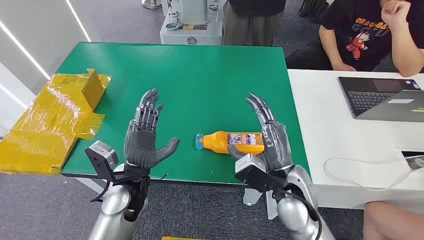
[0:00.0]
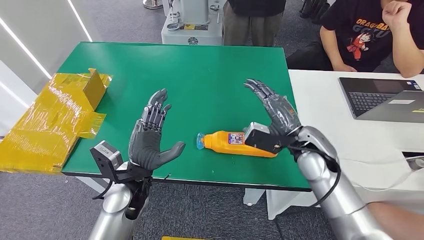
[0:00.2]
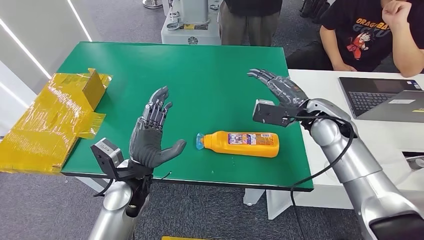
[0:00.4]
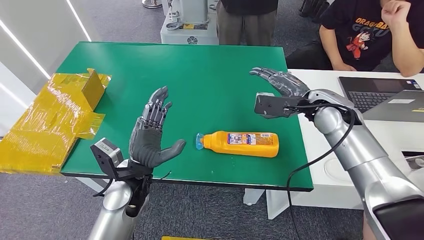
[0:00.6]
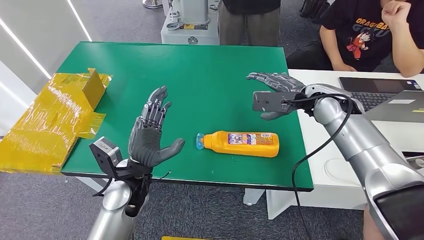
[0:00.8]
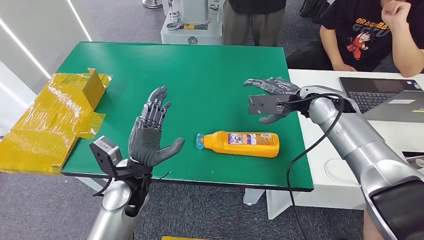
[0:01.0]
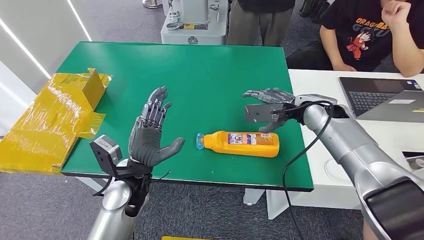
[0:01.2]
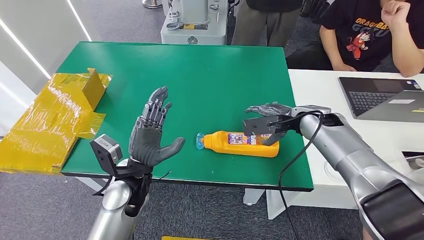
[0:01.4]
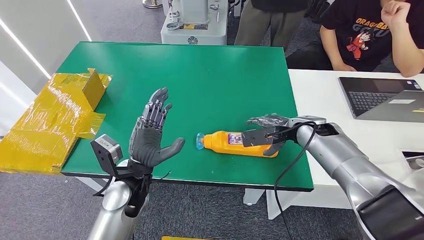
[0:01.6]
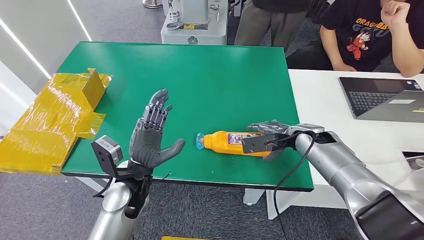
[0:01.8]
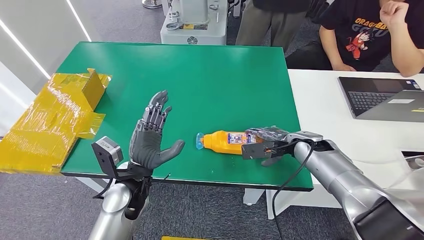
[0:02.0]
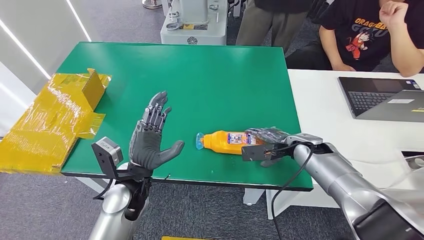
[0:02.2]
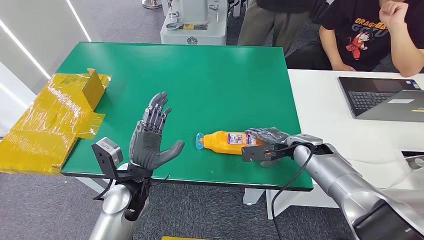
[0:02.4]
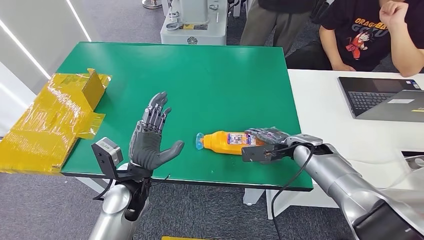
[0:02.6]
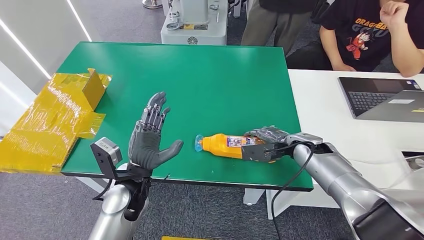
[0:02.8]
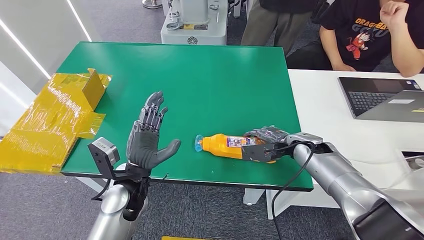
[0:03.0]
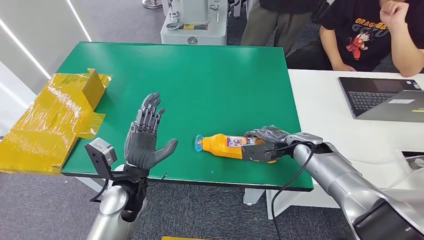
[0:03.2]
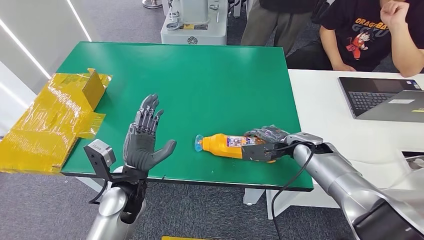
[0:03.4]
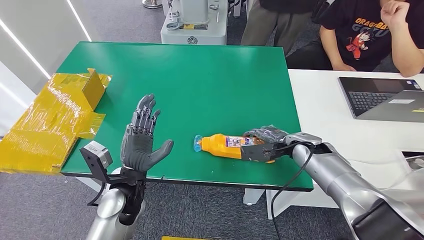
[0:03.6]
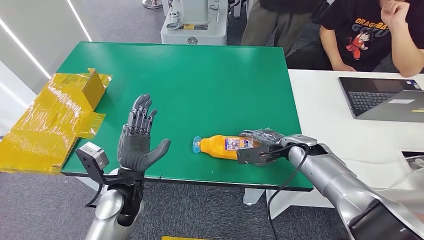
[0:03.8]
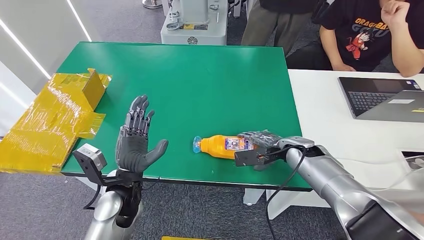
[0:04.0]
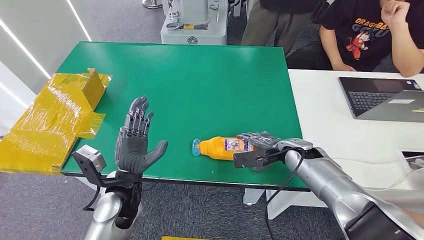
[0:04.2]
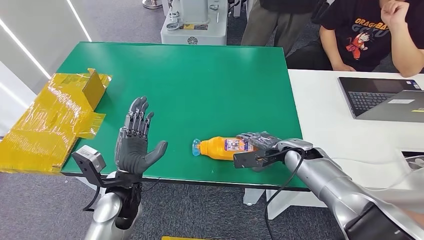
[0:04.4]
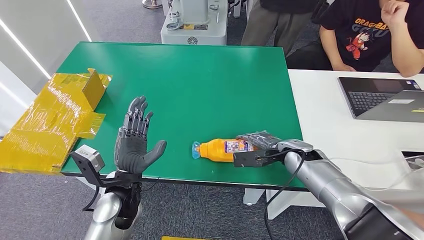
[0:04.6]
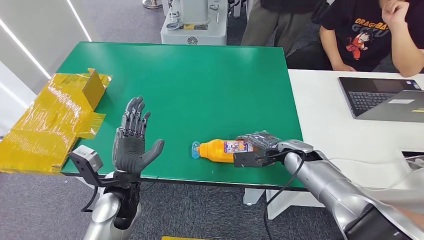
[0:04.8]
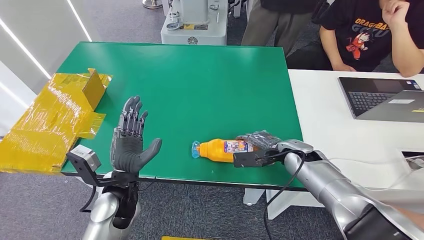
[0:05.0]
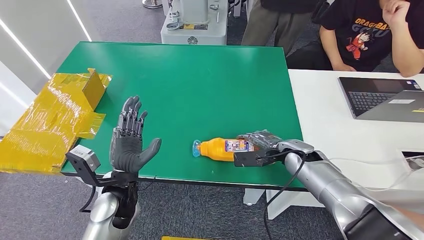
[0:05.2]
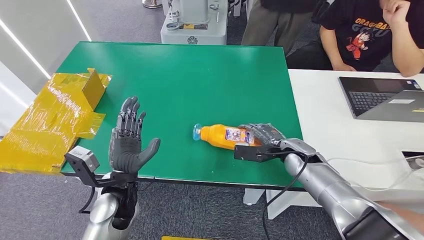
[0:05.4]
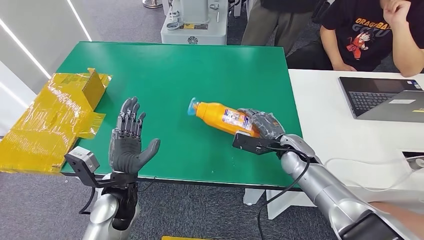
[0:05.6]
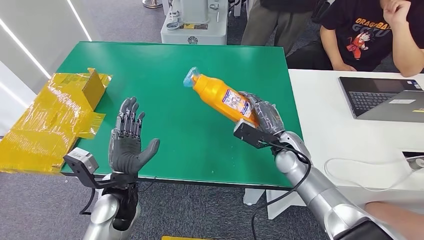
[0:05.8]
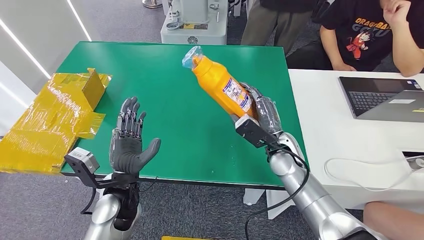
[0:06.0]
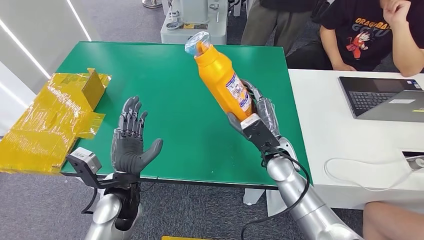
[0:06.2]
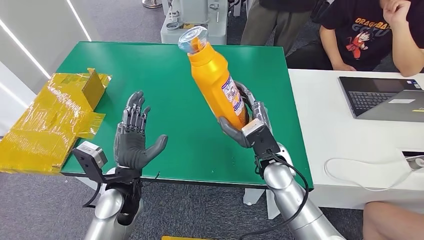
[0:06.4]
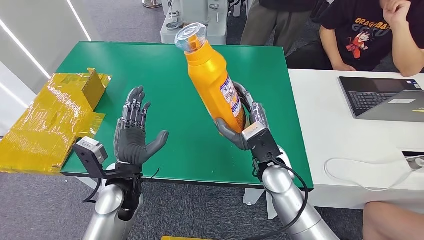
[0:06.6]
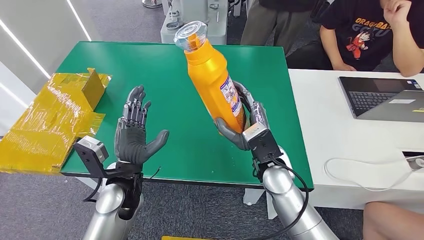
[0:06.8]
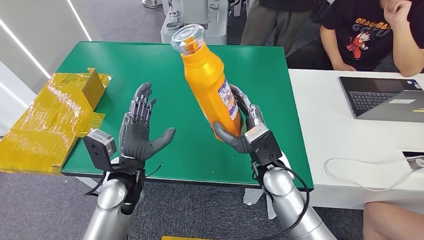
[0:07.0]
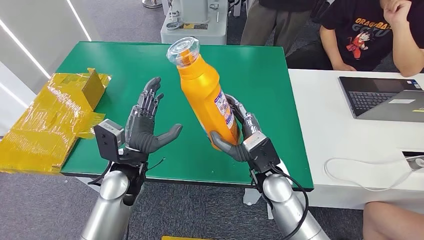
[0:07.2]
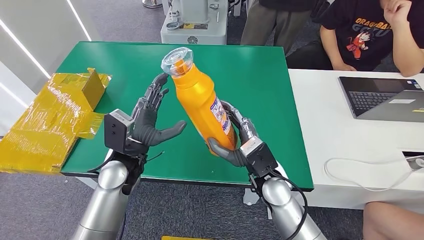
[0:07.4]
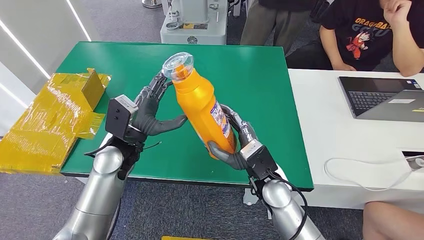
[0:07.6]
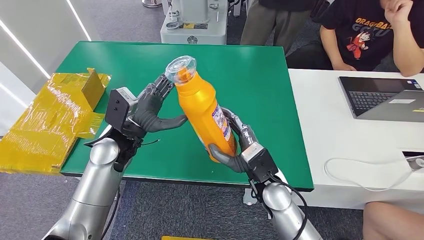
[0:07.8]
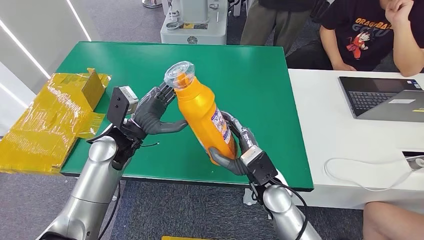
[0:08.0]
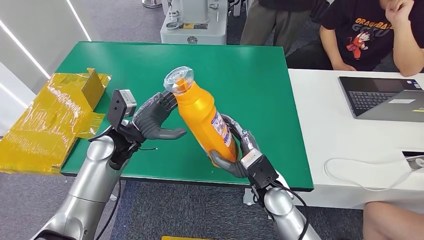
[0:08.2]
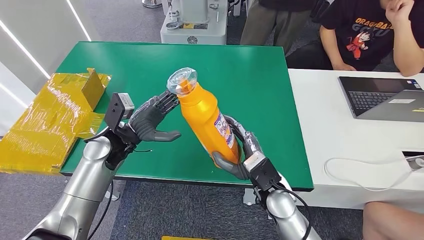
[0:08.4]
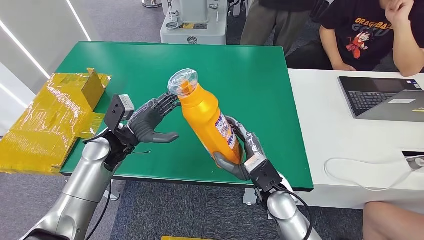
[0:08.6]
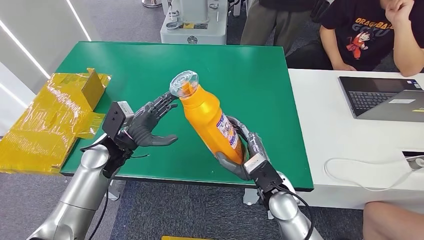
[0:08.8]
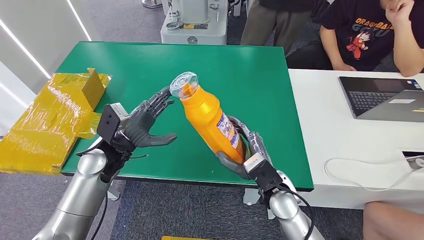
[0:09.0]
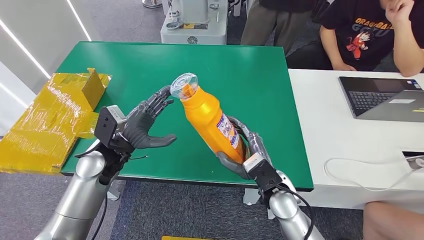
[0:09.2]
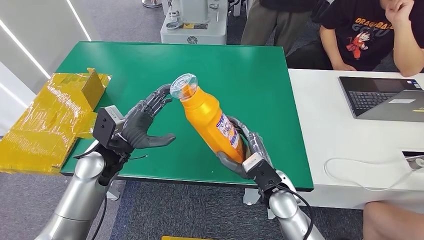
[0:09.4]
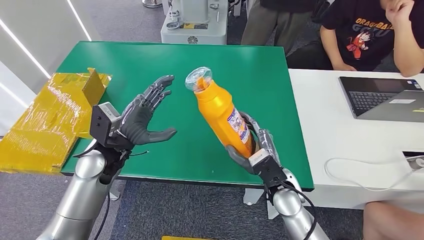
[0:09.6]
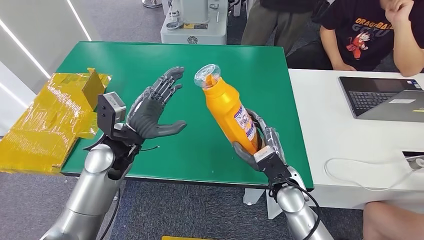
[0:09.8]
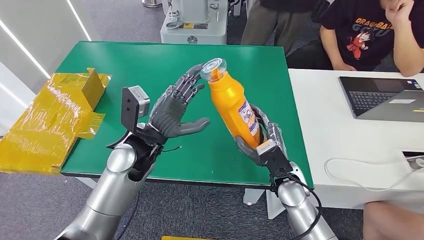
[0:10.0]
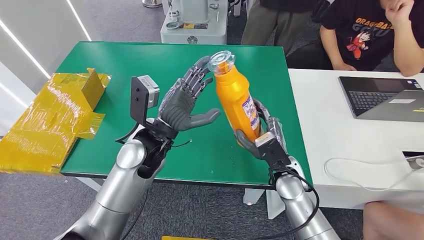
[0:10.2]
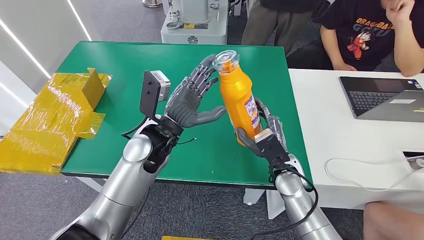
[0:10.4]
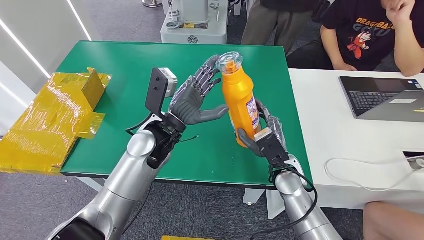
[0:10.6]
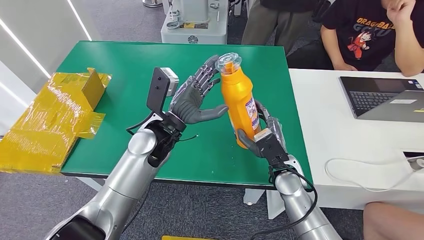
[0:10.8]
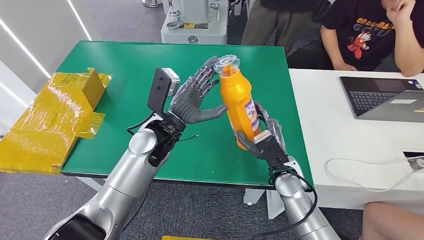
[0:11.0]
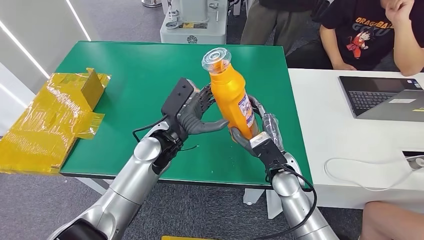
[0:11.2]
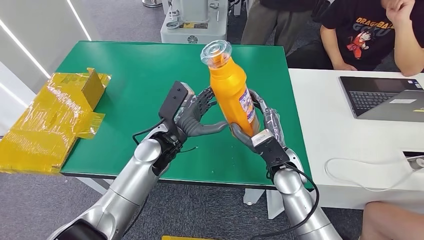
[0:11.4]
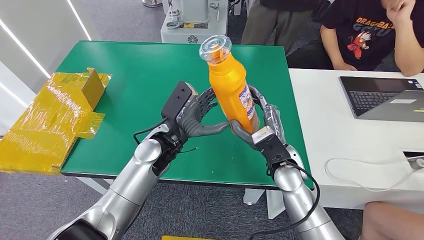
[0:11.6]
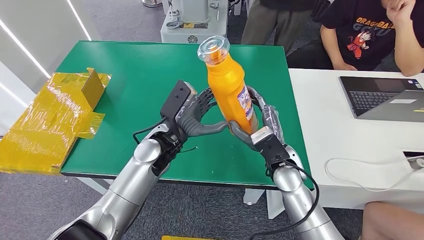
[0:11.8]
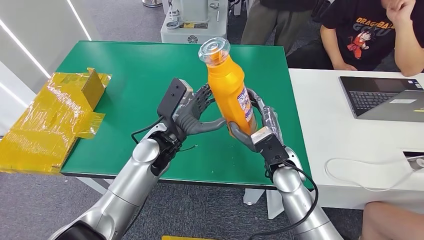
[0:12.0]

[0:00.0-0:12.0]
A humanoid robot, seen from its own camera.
Step, 0:00.0 to 0:09.0: Pick up the bottle from the table.
0:01.6 to 0:03.0: The right hand shifts roughly 5 cm downward.
0:03.0 to 0:04.4: The hands stay close to where they were, moving slightly.
0:04.4 to 0:06.0: The right hand heads to the left, covering some 10 cm.
0:07.6 to 0:09.0: The left hand goes approximately 5 cm to the left.
0:10.4 to 0:12.0: The hands stay close to where they were, moving slightly.

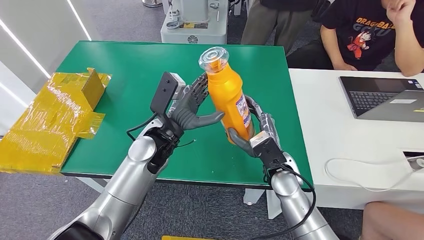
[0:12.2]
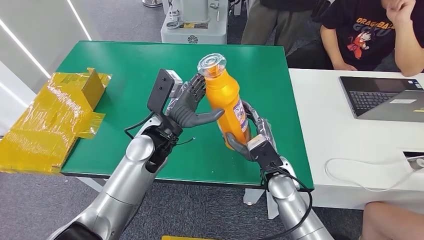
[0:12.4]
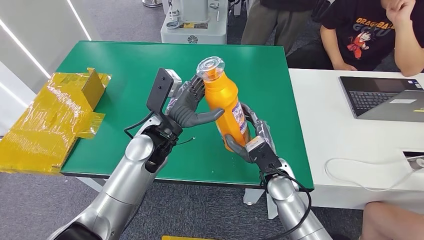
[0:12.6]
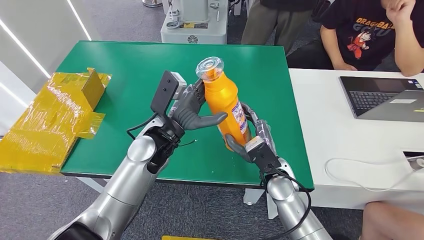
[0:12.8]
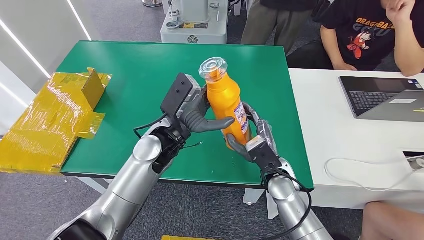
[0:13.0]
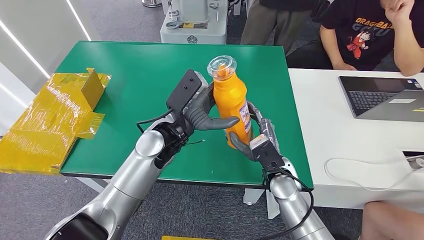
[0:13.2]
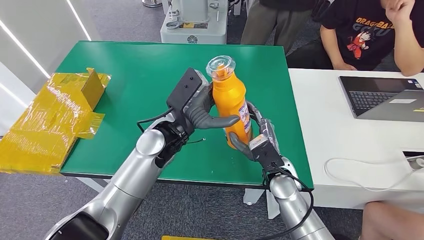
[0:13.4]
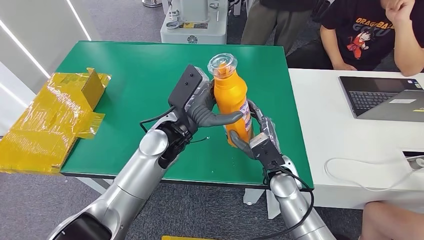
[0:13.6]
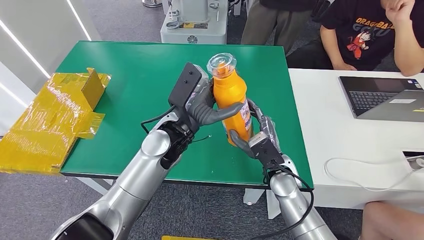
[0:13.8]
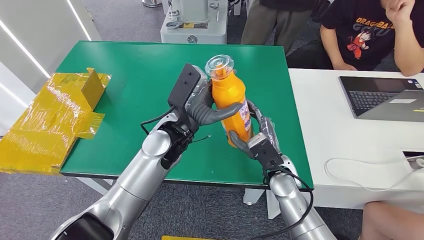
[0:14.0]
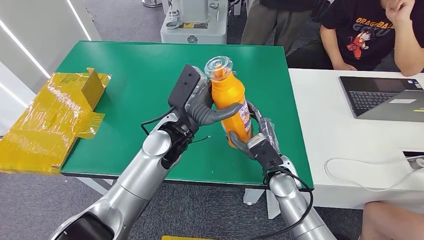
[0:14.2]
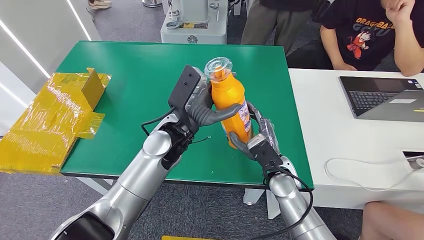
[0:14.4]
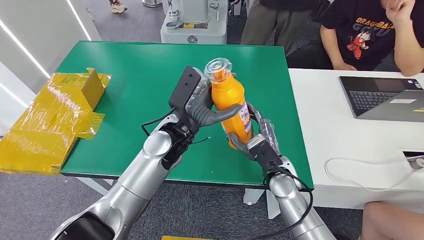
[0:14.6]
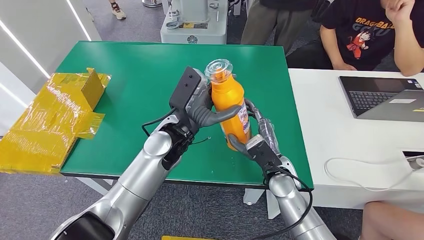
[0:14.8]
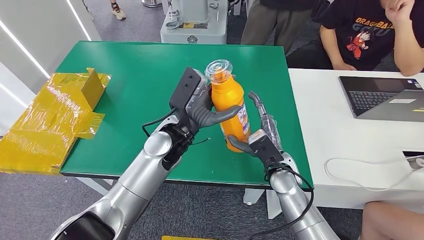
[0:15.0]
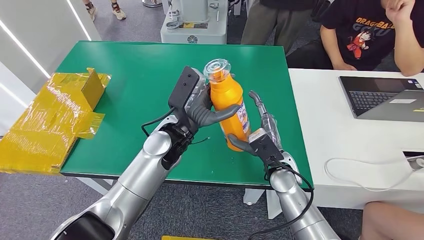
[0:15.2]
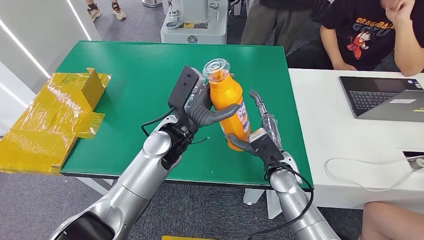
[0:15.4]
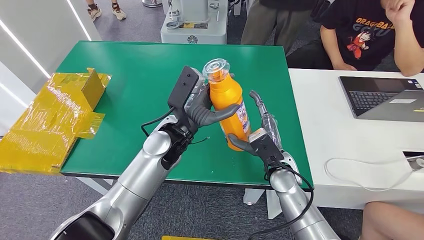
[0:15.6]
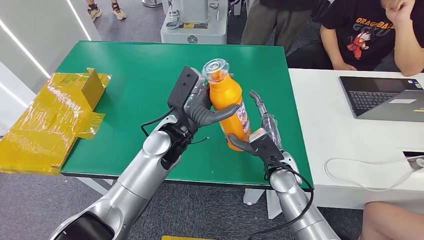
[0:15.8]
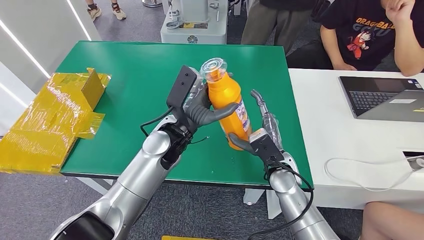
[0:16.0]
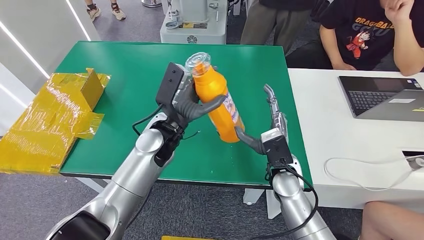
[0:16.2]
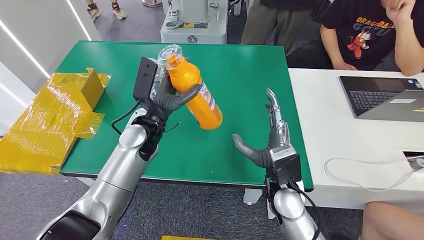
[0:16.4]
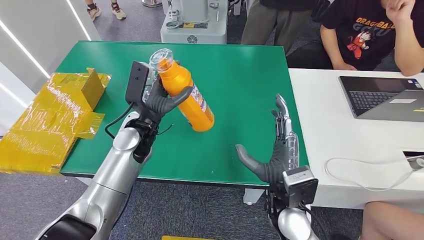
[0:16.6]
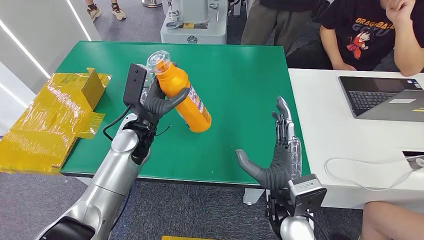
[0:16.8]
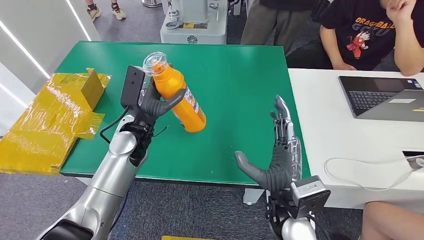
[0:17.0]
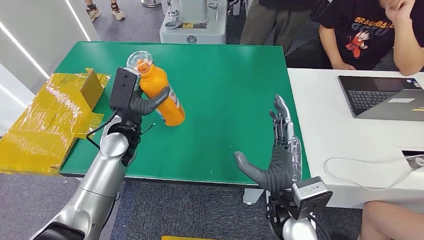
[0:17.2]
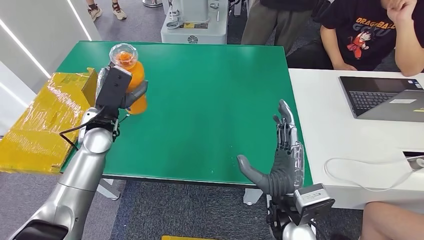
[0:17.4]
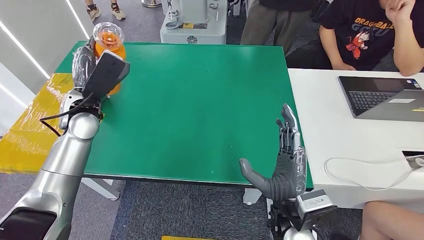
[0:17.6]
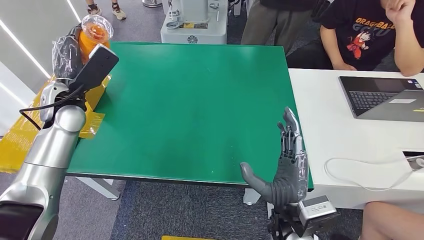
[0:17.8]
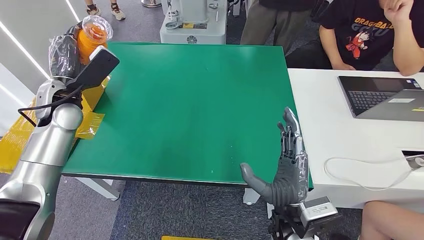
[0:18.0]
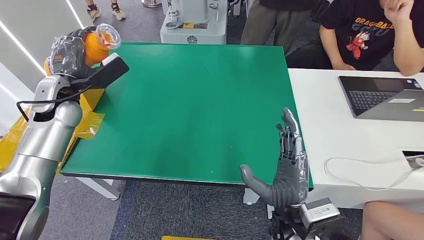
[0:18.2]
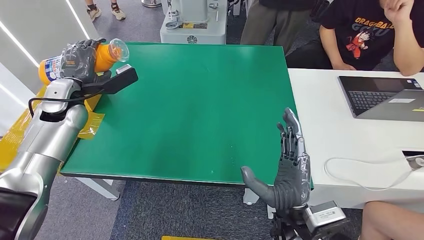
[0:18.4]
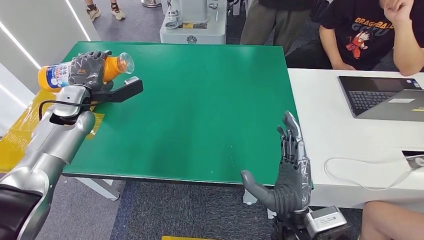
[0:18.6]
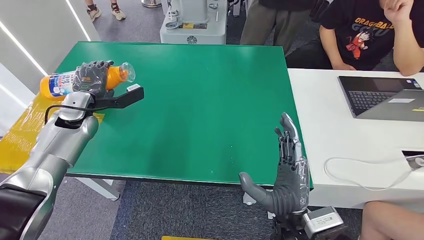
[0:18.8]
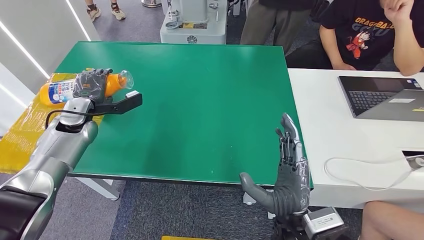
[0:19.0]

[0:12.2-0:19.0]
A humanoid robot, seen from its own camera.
0:12.2 to 0:13.6: The hands move only a little.
0:13.6 to 0:15.0: Both hands stay put.
0:15.0 to 0:16.2: There are only small adjustments of the hands.
0:17.6 to 0:19.0: The left hand travels to the left and downward by approximately 10 cm.
